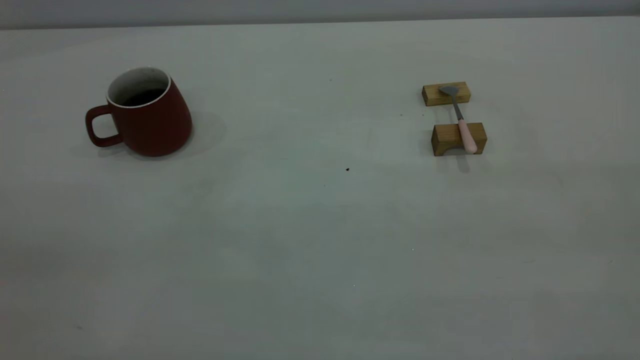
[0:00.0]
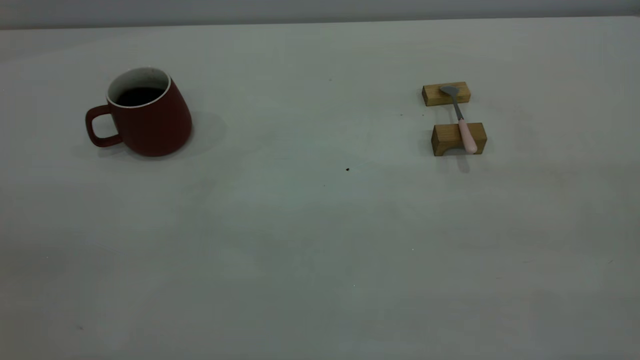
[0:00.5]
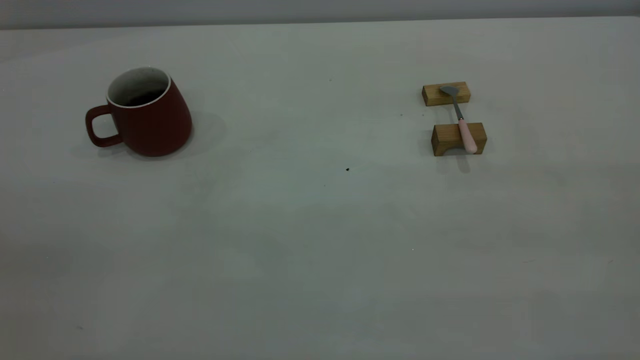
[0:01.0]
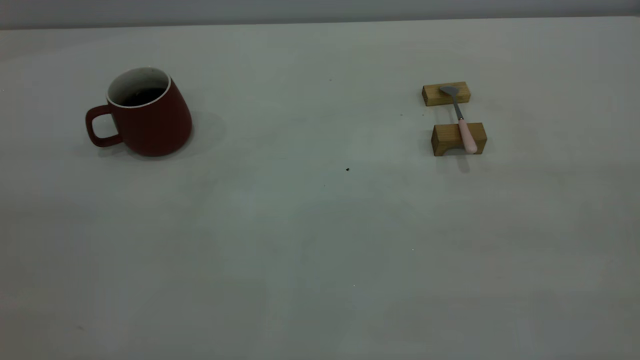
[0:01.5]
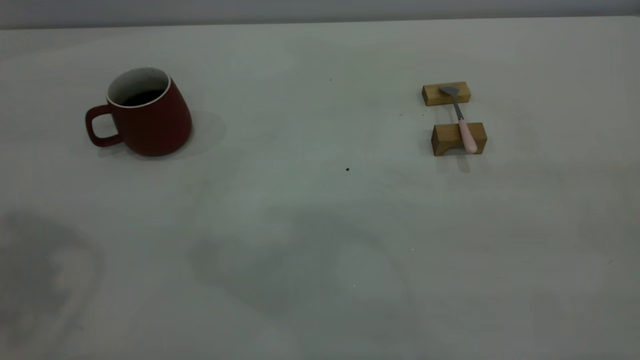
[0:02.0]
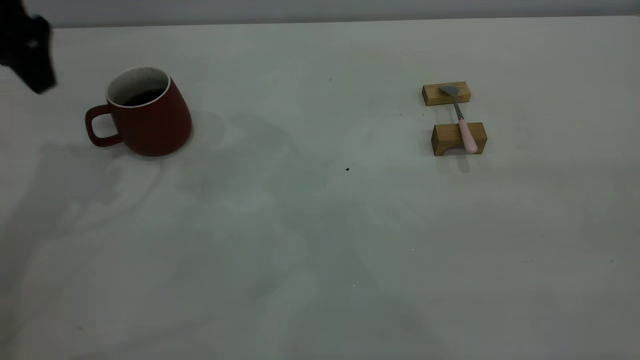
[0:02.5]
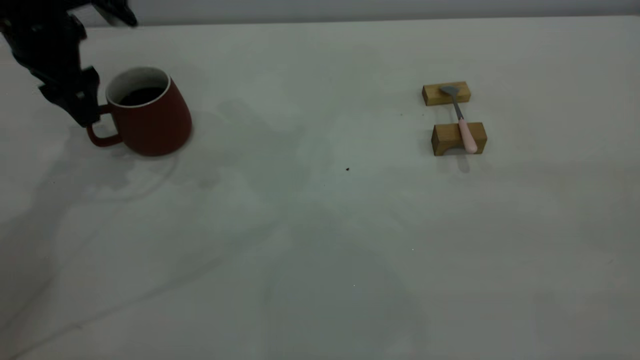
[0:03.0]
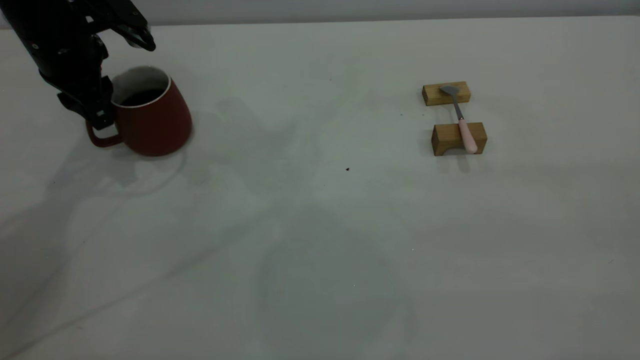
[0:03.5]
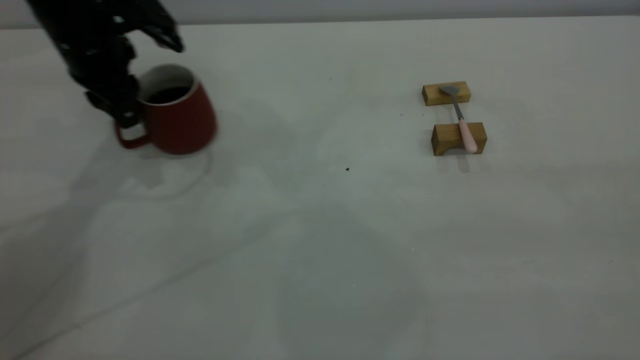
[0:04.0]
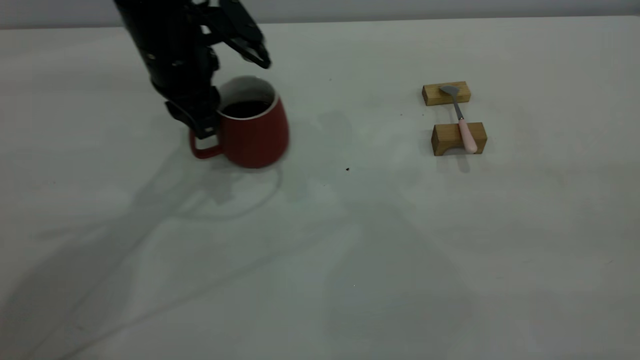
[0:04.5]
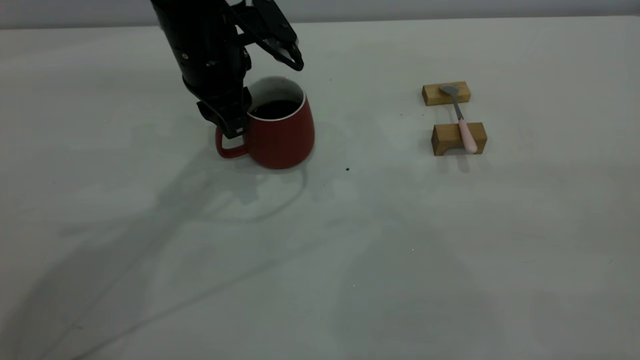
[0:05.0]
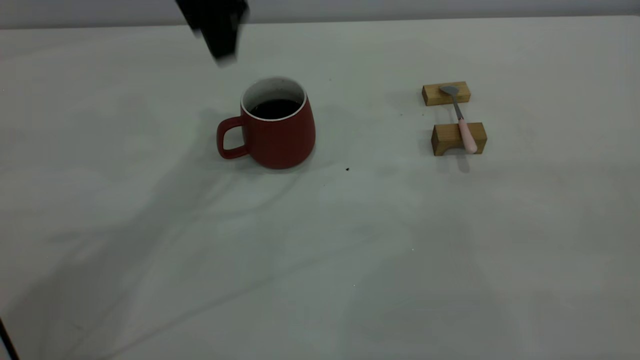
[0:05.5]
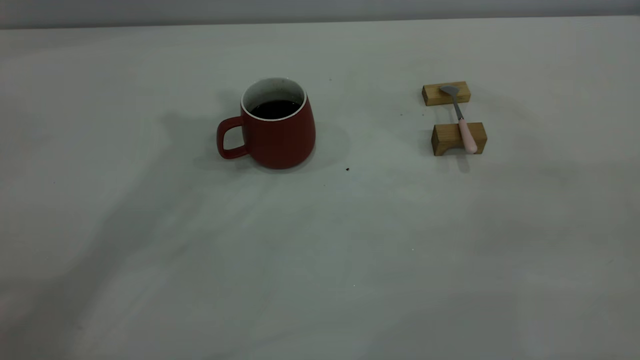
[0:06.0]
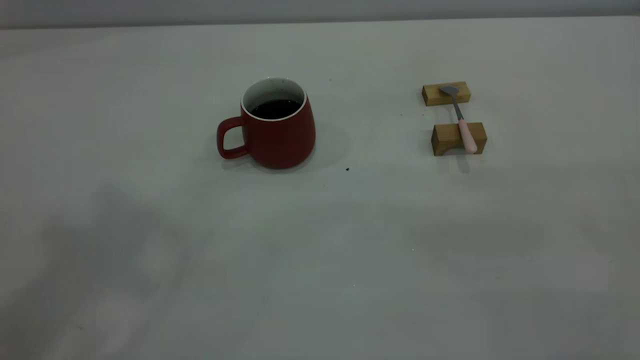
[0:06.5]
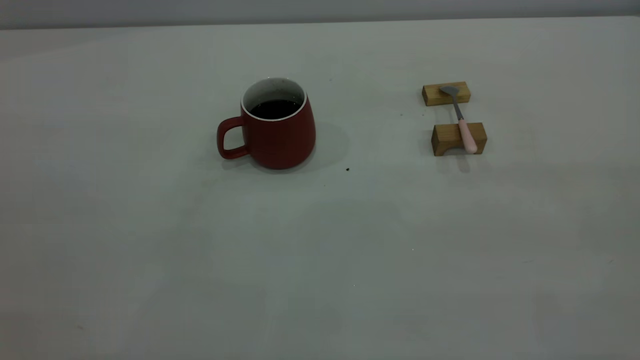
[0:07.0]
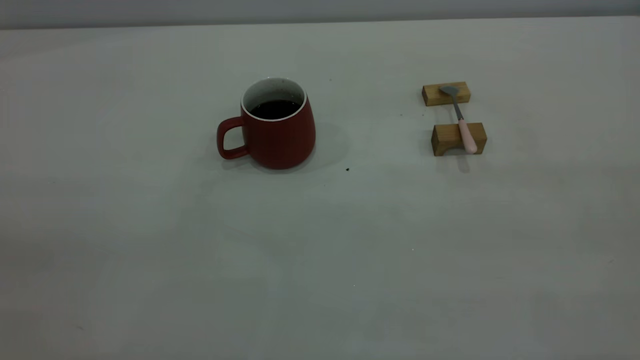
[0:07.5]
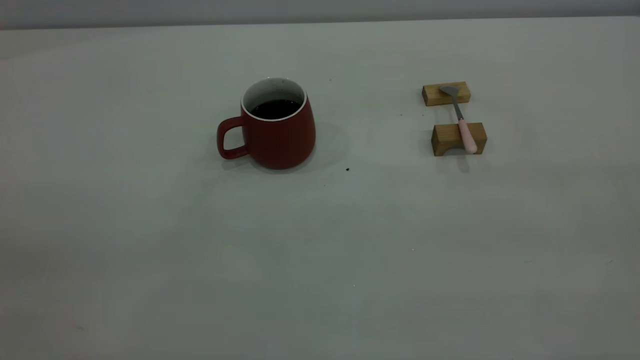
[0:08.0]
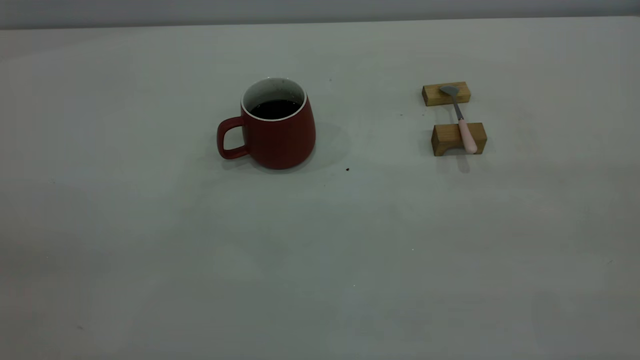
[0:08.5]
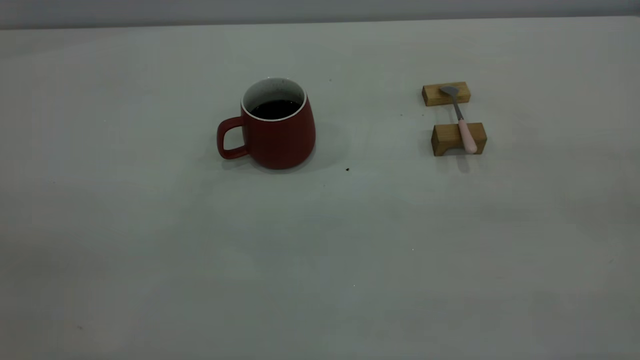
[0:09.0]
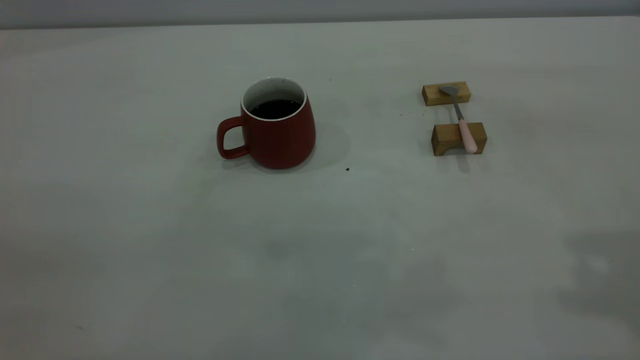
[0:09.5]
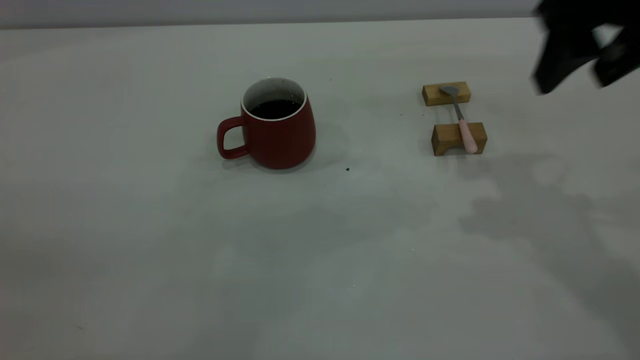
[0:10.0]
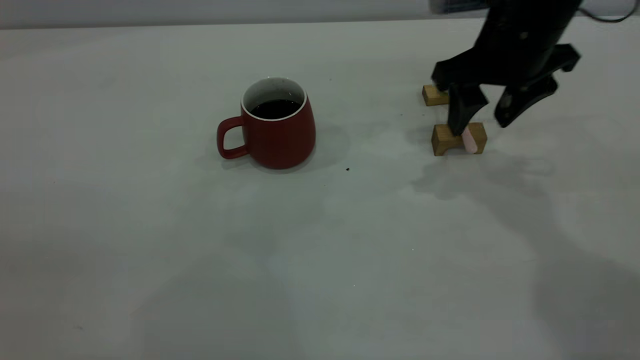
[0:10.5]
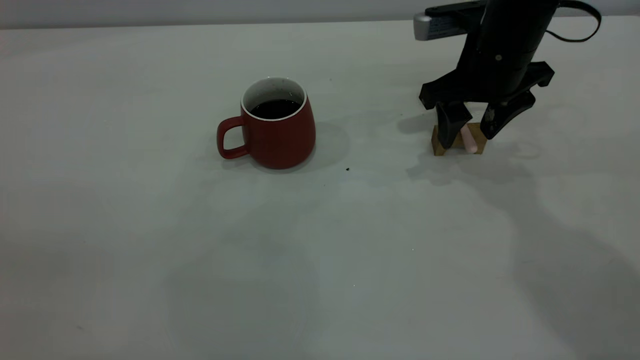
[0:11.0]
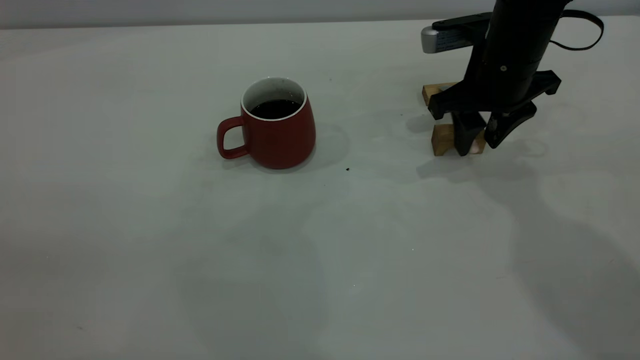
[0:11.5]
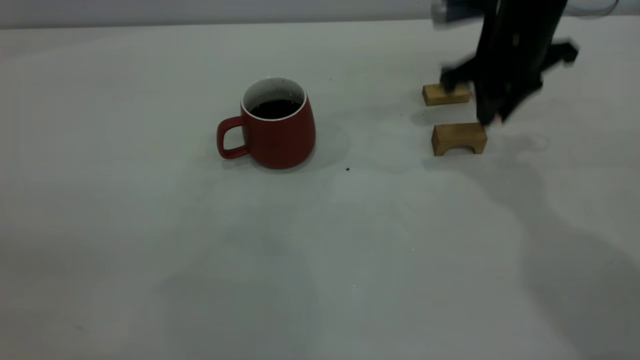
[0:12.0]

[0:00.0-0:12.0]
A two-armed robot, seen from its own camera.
Step, 0:00.0 to 0:05.0: Move the cup with coffee to the center of view.
Step, 0:06.0 to 0:11.5: Pick up the spoon.
0:02.0 to 0:04.0: The left gripper is displaced downward and forward by about 30 cm, and closes its fingers.
0:04.0 to 0:06.0: The left gripper goes about 30 cm upward, and opens, then closes again.
0:08.0 to 0:10.0: The right gripper travels forward by some 30 cm, and opens its fingers.
0:10.0 to 0:12.0: The right gripper is displaced forward and downward by approximately 10 cm, and closes.

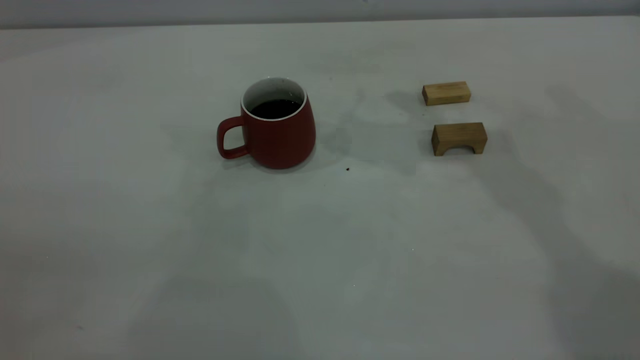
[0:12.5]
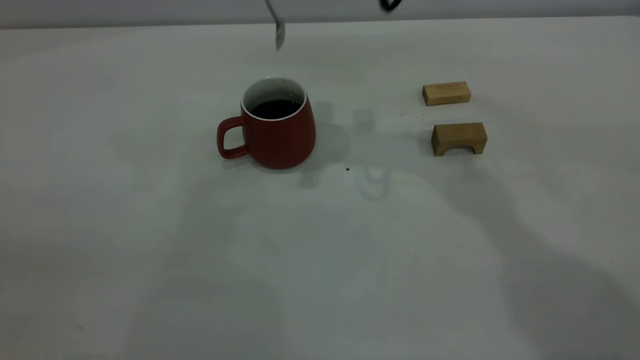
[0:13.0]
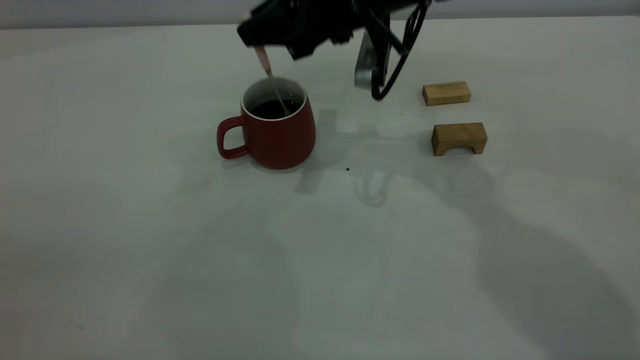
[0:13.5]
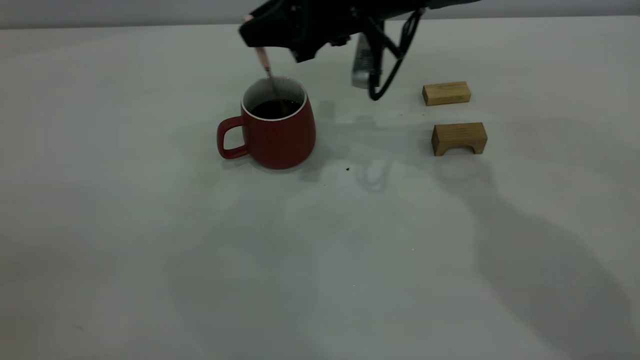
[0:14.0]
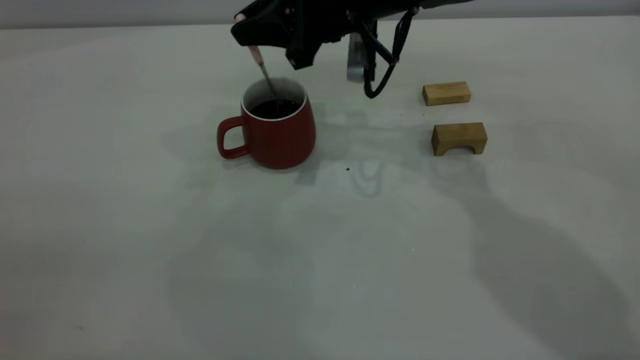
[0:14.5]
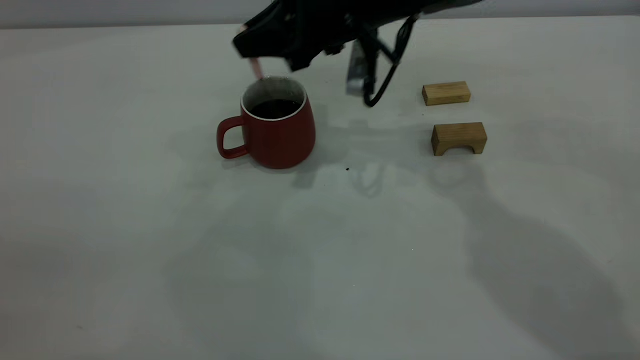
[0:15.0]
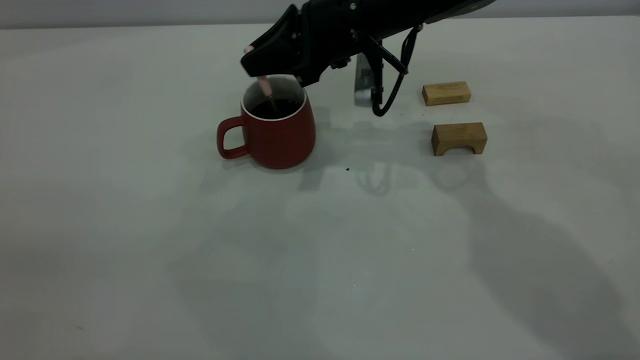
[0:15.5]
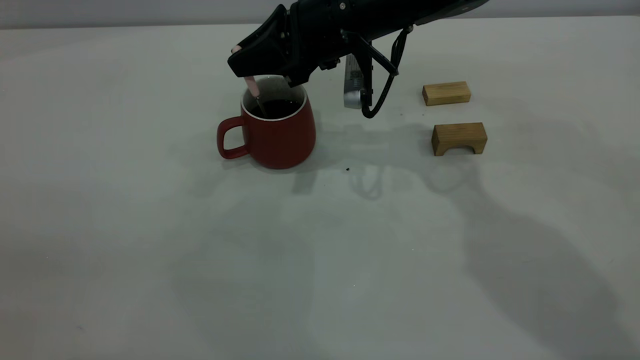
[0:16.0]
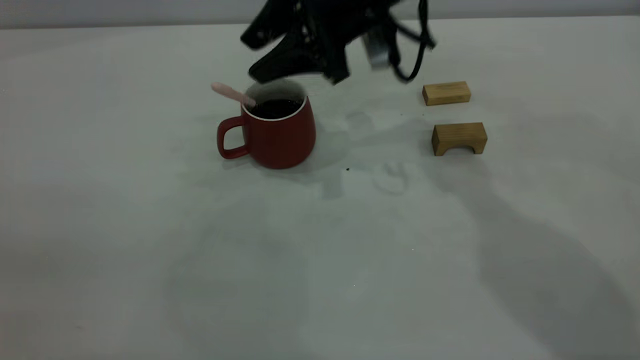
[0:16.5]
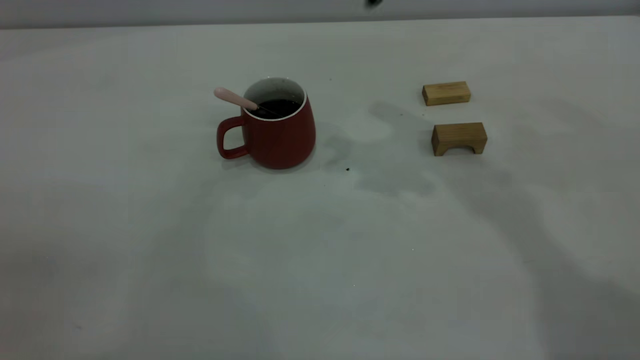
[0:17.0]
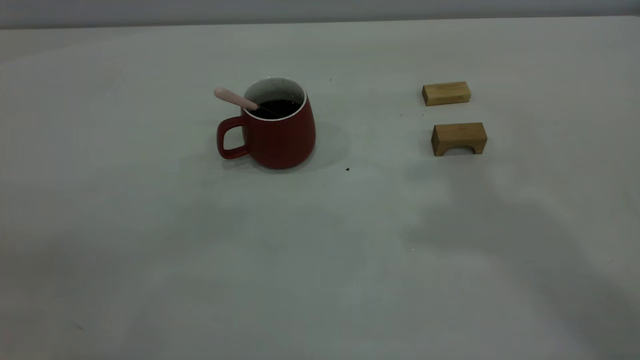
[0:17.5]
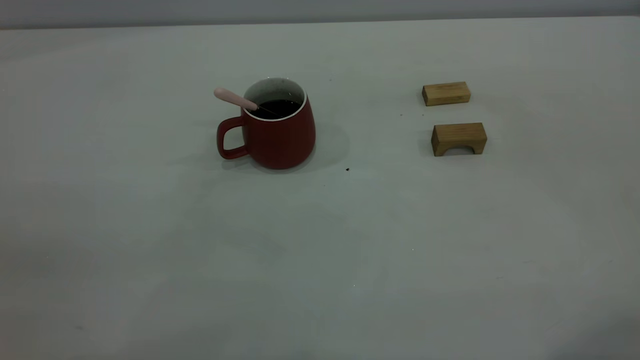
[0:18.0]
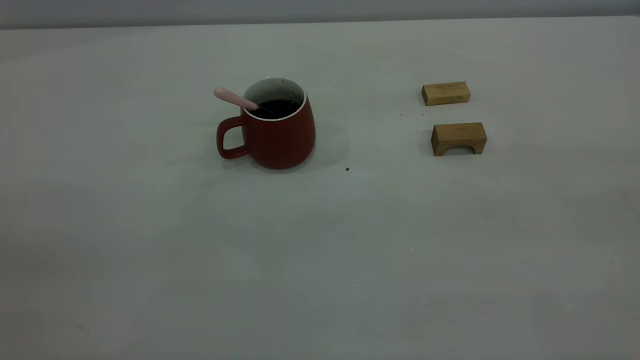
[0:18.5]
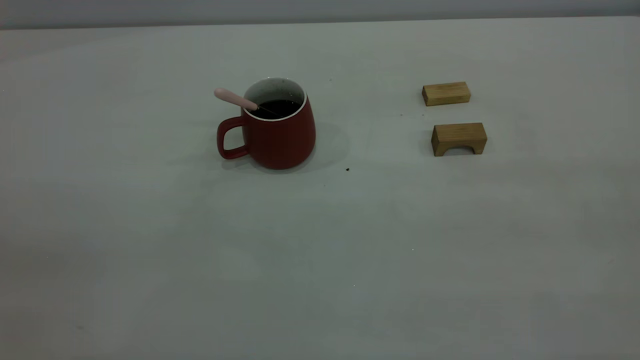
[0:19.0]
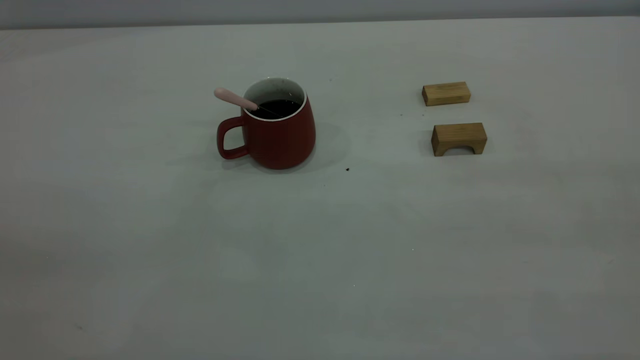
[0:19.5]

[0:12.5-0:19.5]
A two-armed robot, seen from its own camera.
Step, 0:12.5 to 0:16.5: Stir the coffee in the cup.
0:12.5 to 0:14.5: The right gripper goes some 15 cm downward and to the left.
0:14.5 to 0:16.0: The grippers stay close to where they were, moving slightly.
0:16.0 to 0:17.5: The right gripper is displaced upward, backward and to the right by roughly 40 cm, and opens up.

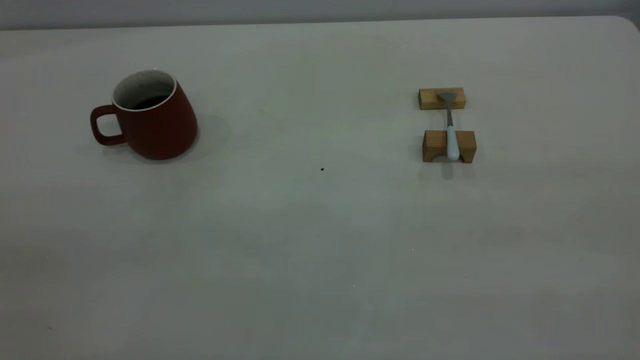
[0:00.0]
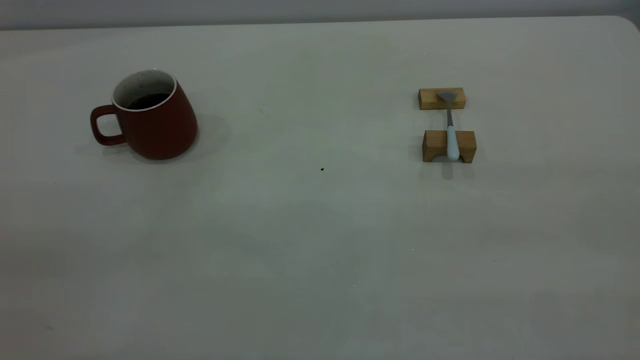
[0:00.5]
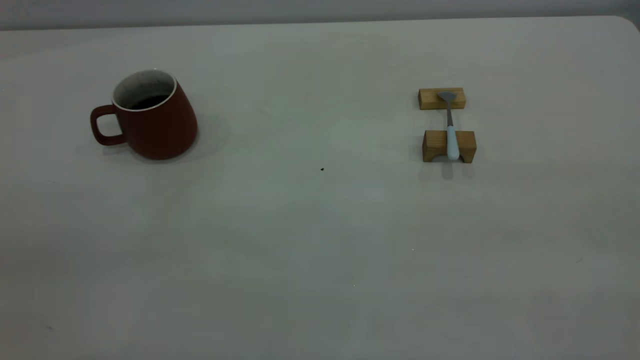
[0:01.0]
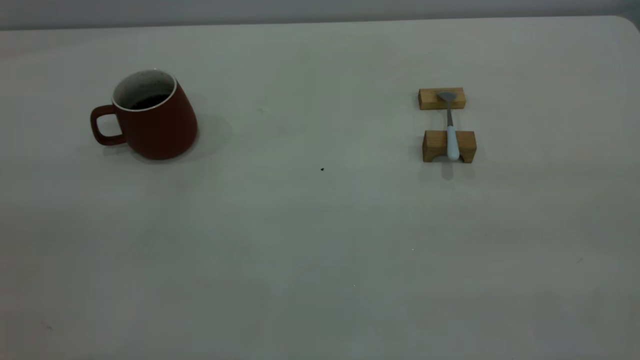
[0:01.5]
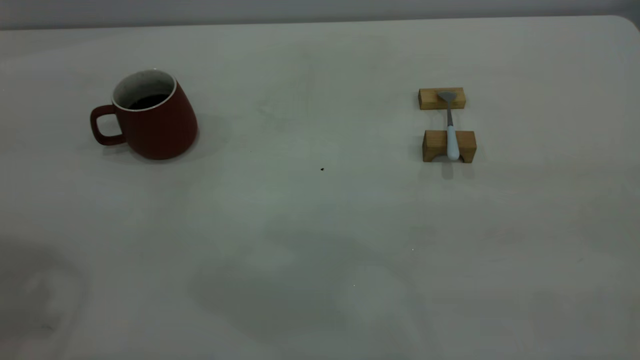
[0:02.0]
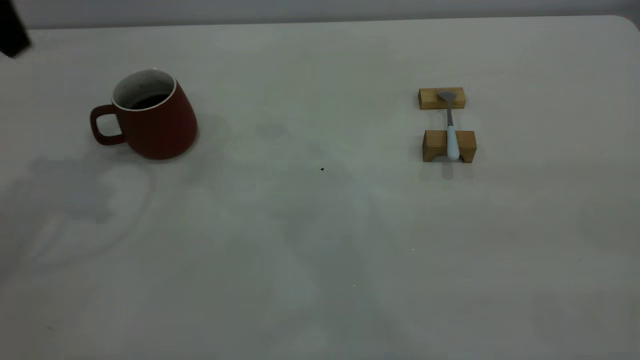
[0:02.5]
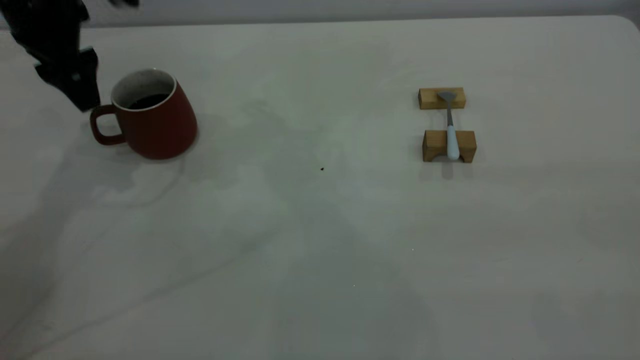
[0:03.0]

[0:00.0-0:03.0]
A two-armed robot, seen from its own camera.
0:01.5 to 0:03.0: The left gripper heads forward and downward, covering approximately 40 cm.
